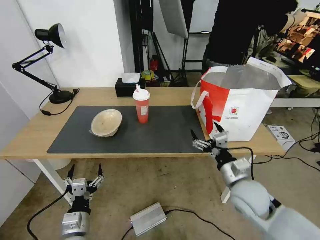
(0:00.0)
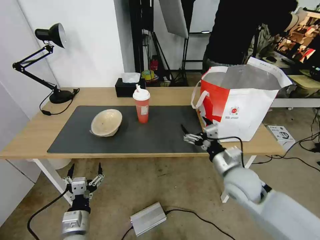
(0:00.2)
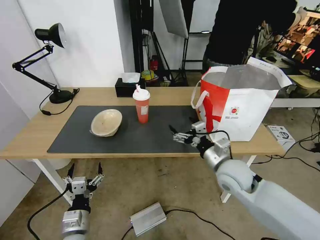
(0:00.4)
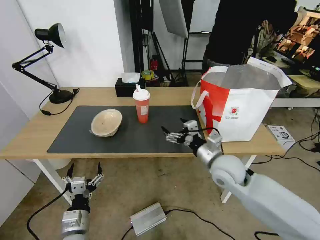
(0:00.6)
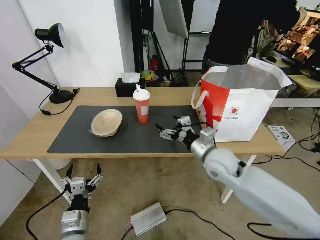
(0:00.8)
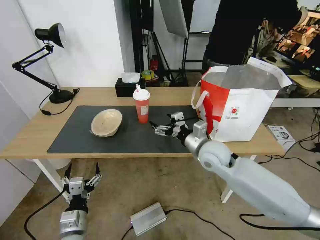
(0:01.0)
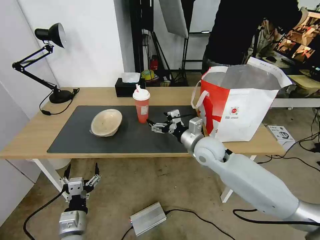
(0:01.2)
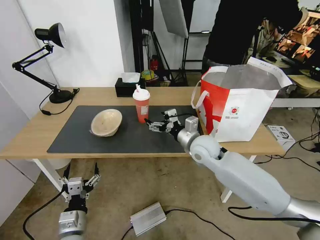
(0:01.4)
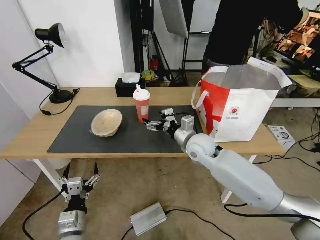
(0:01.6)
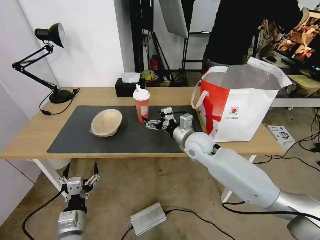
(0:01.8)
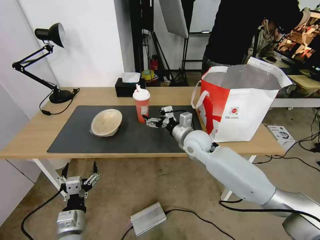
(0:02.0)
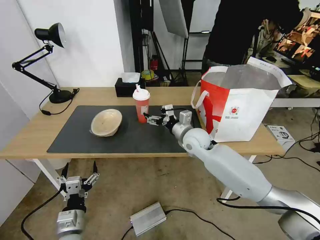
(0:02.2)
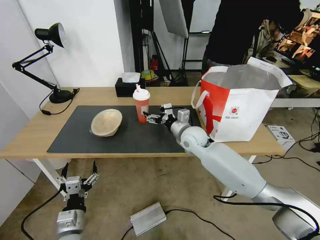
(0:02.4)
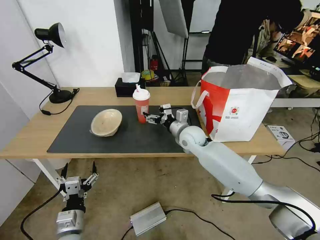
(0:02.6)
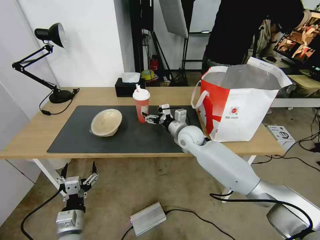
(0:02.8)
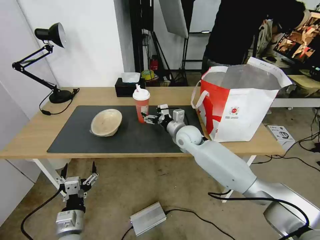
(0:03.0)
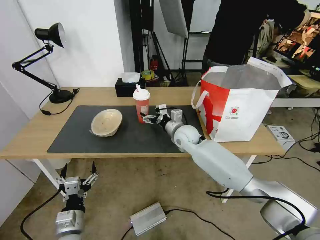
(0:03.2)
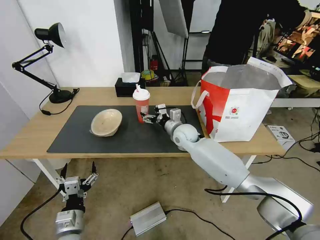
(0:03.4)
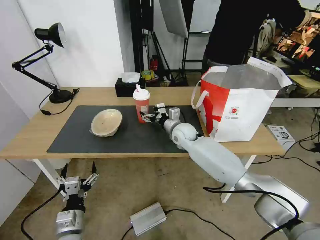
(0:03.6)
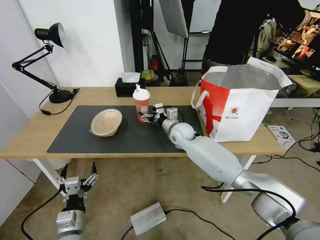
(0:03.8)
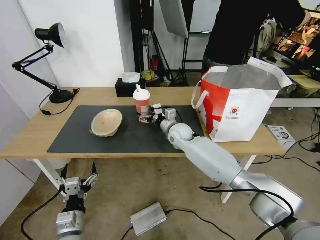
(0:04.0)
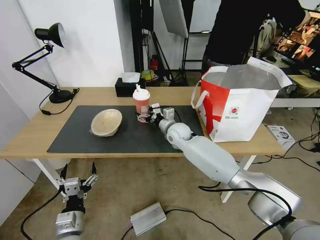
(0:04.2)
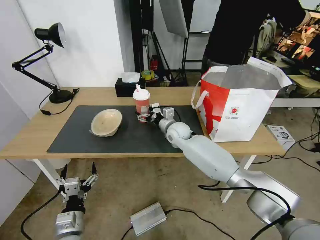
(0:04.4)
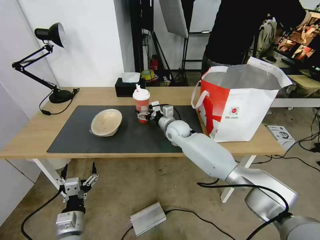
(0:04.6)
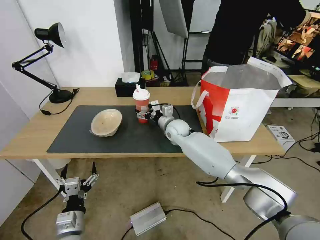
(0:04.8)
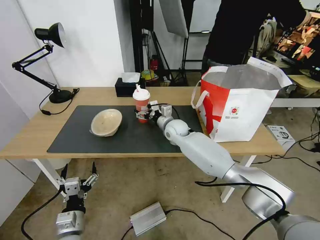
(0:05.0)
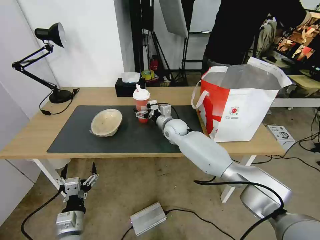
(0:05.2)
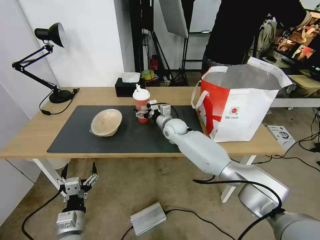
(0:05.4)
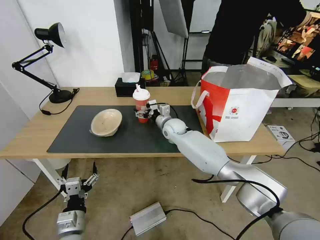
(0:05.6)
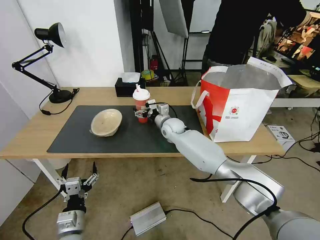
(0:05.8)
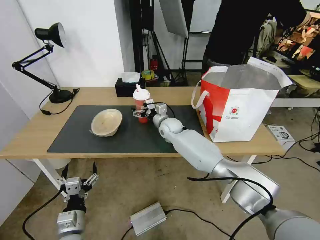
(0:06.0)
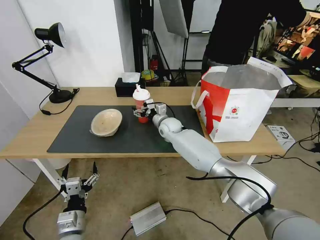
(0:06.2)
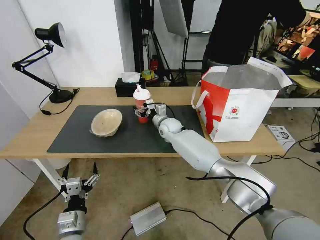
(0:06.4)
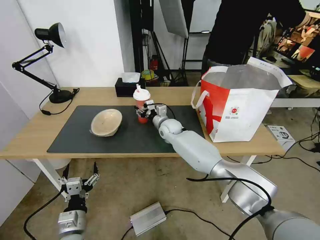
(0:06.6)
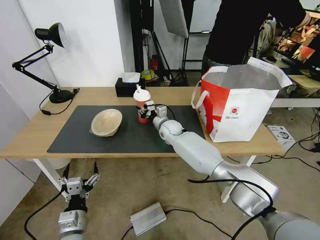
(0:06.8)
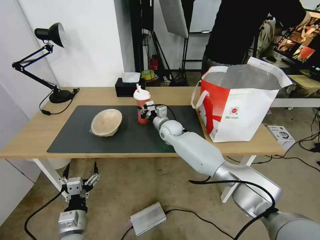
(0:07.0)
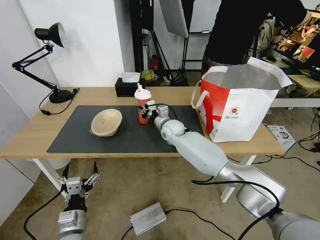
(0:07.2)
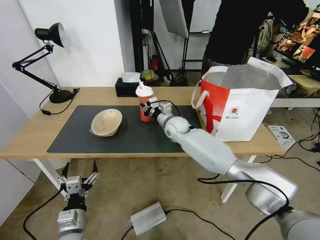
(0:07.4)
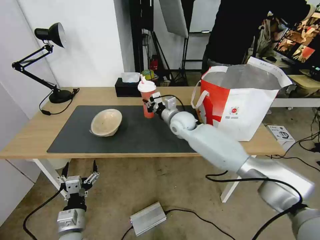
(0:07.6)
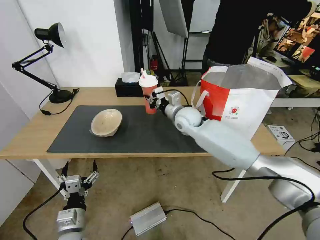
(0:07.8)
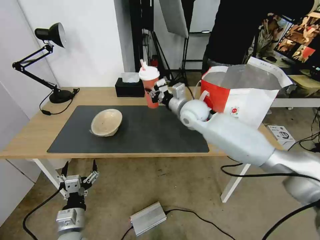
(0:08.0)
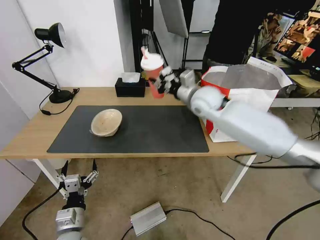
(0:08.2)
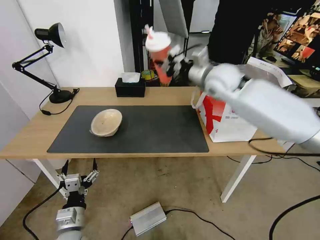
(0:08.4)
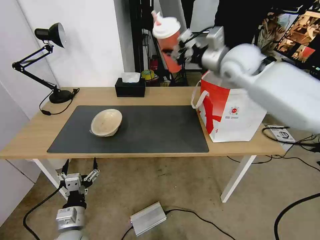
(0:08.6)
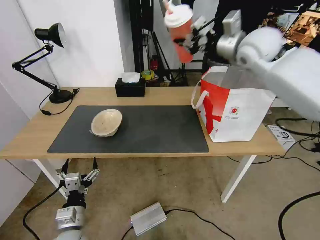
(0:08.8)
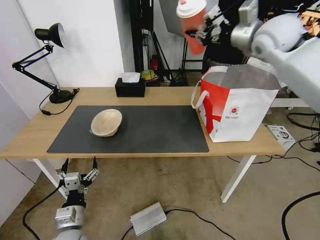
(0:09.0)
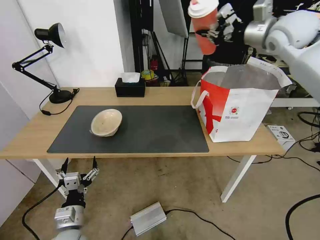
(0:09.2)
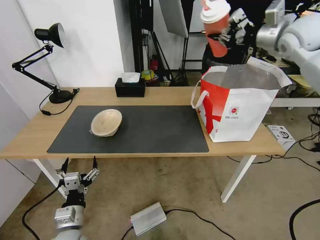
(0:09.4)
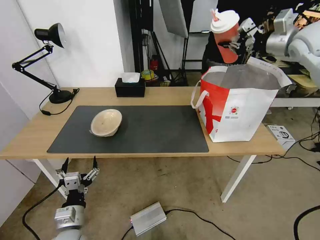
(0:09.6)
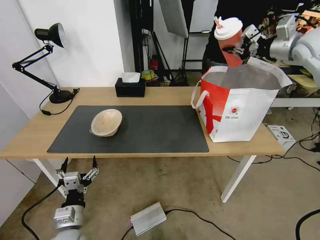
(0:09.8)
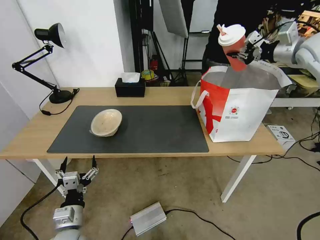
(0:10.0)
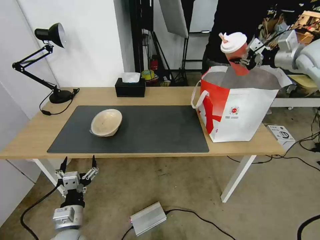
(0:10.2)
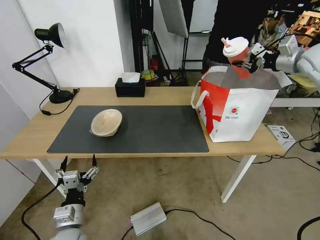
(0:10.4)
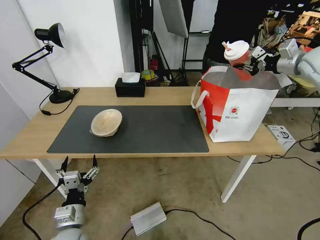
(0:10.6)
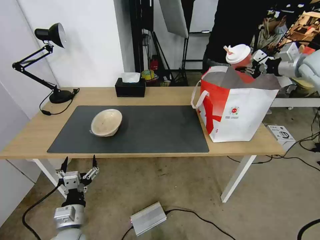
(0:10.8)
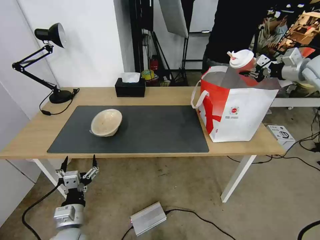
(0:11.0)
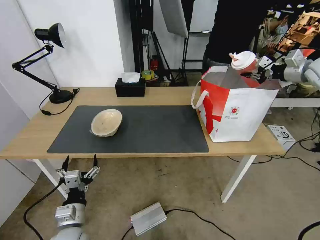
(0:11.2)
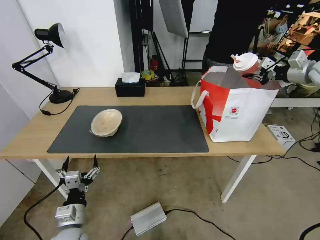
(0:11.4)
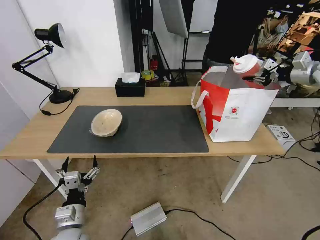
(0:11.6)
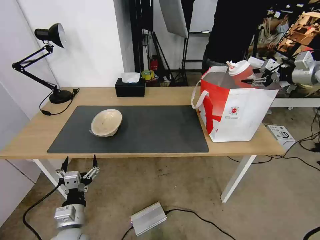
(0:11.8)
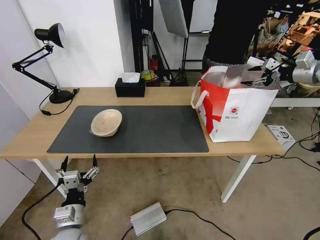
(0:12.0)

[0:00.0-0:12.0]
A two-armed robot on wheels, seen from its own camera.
Task of the whole recording: Pick up the trash from the table and place it into the takeout bag.
0:00.0 to 0:01.6: The right gripper moves forward and to the left, about 20 cm.
0:01.6 to 0:03.0: The right gripper heads forward, covering roughly 5 cm.
0:03.0 to 0:04.4: The right gripper shifts by approximately 5 cm.
0:04.4 to 0:06.0: The grippers stay close to where they were, moving slightly.
0:06.0 to 0:07.6: The right gripper heads upward, covering about 5 cm, and closes its fingers.
0:07.6 to 0:09.0: The right gripper travels upward and to the right by roughly 35 cm.
0:09.0 to 0:10.4: The right gripper heads to the right, covering about 20 cm.
0:10.4 to 0:12.0: The right gripper travels to the right by about 5 cm, and opens.

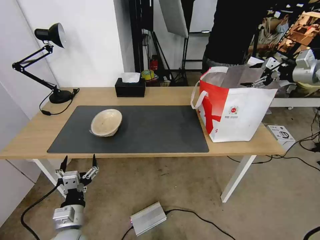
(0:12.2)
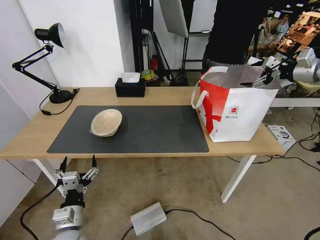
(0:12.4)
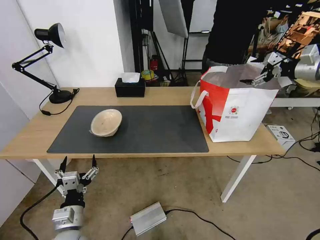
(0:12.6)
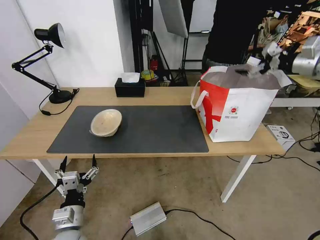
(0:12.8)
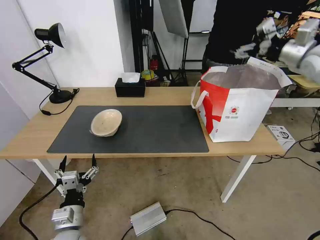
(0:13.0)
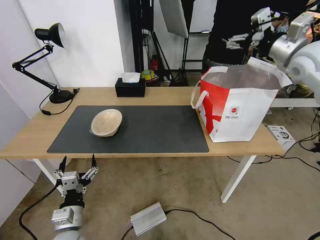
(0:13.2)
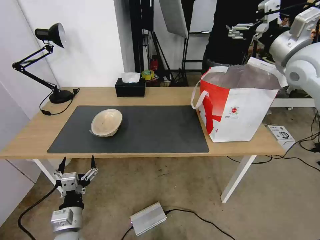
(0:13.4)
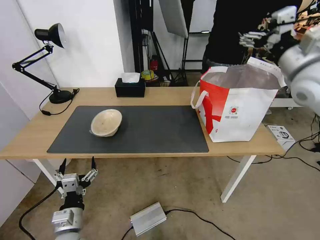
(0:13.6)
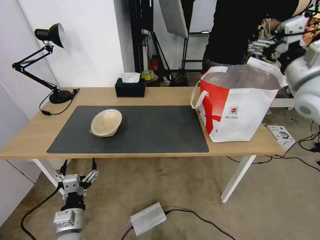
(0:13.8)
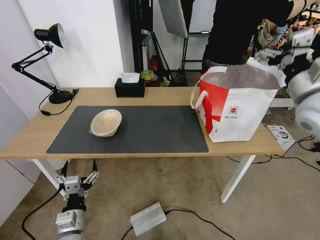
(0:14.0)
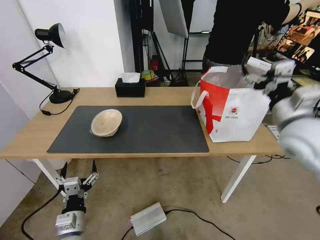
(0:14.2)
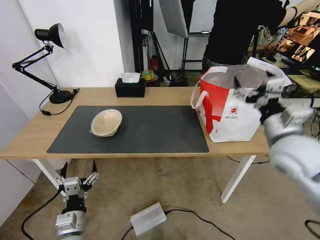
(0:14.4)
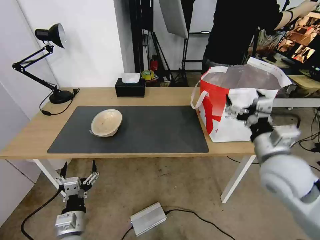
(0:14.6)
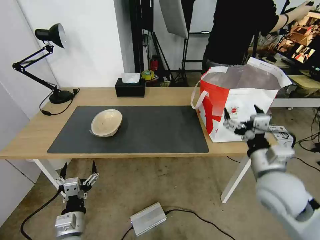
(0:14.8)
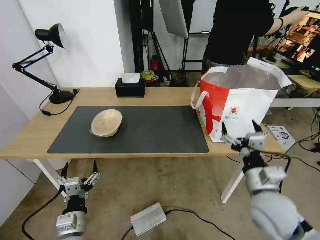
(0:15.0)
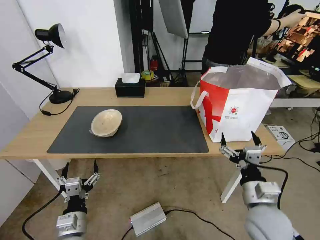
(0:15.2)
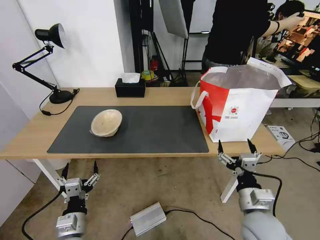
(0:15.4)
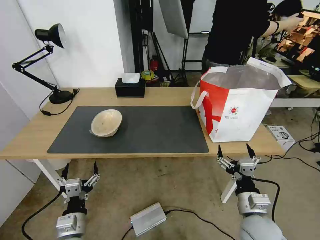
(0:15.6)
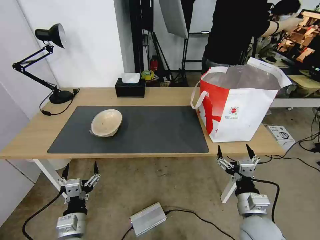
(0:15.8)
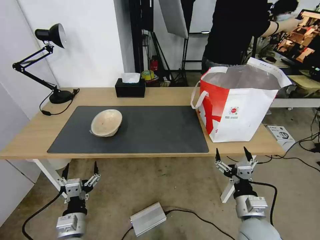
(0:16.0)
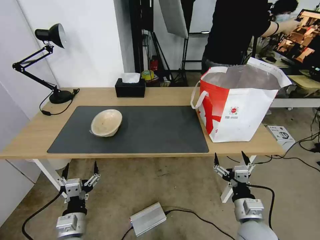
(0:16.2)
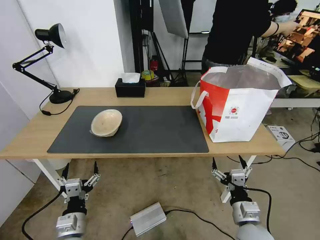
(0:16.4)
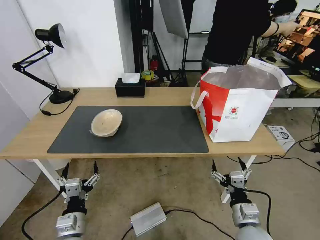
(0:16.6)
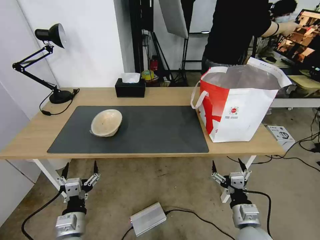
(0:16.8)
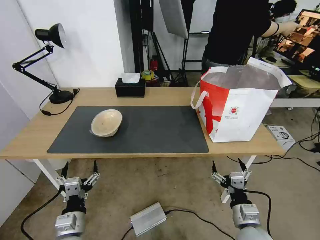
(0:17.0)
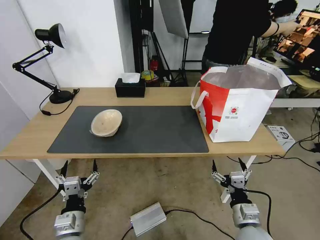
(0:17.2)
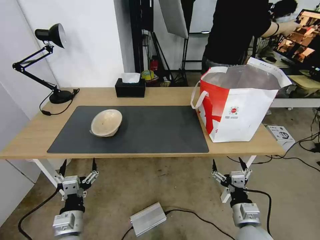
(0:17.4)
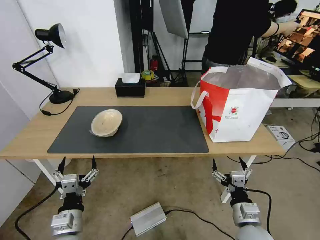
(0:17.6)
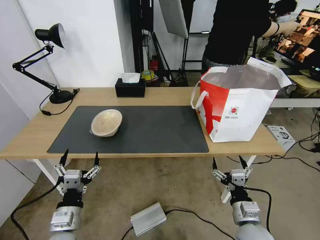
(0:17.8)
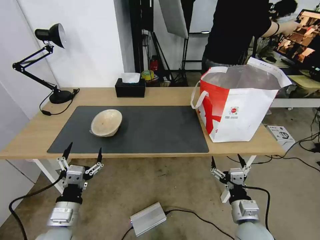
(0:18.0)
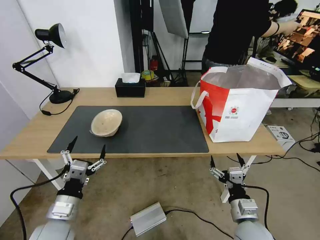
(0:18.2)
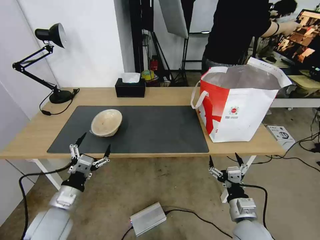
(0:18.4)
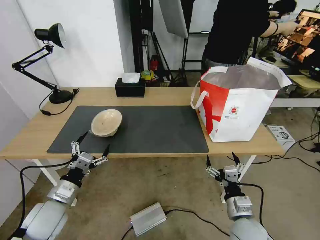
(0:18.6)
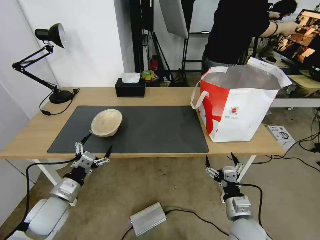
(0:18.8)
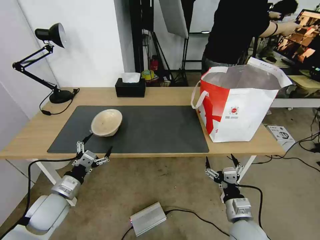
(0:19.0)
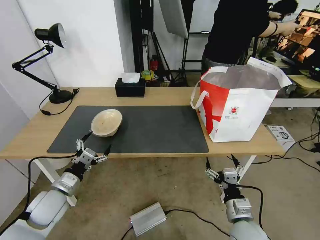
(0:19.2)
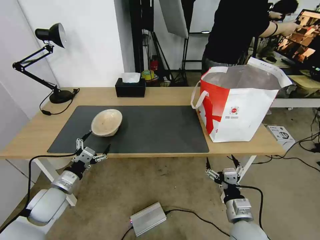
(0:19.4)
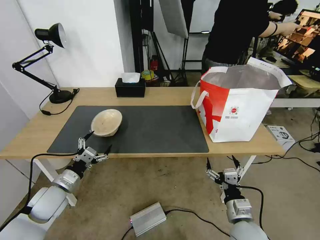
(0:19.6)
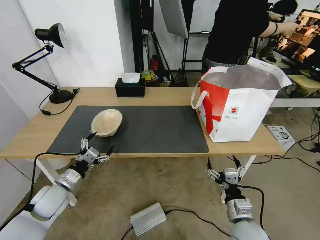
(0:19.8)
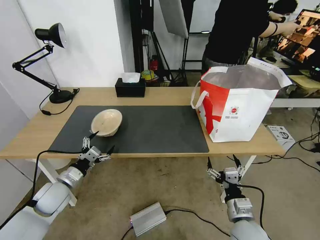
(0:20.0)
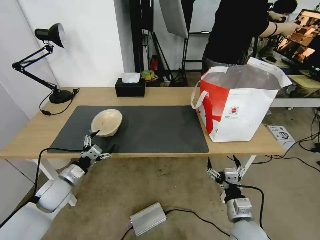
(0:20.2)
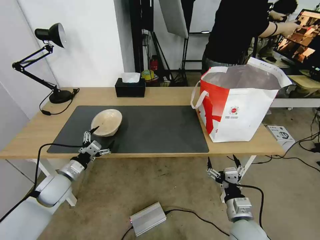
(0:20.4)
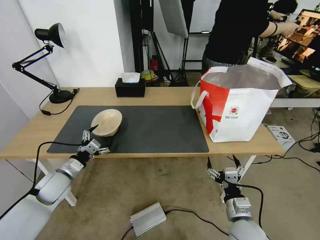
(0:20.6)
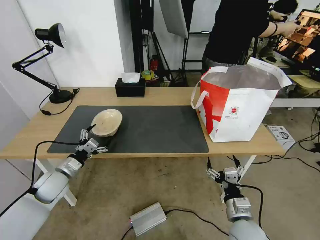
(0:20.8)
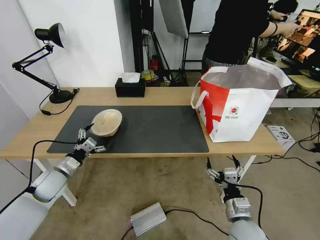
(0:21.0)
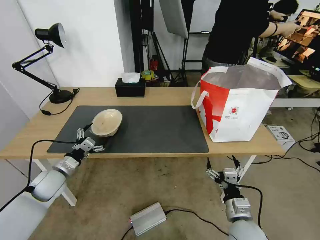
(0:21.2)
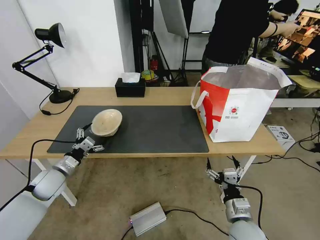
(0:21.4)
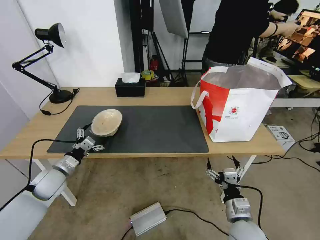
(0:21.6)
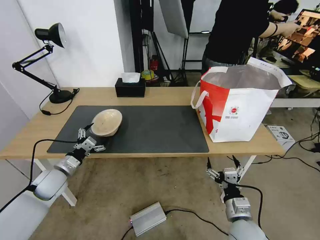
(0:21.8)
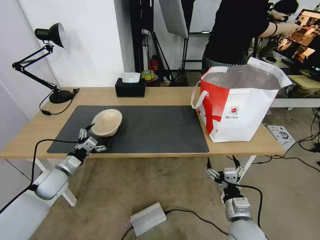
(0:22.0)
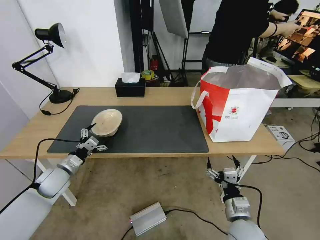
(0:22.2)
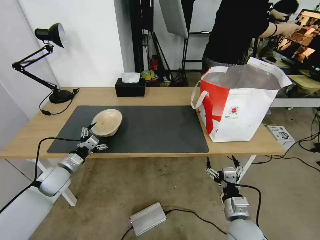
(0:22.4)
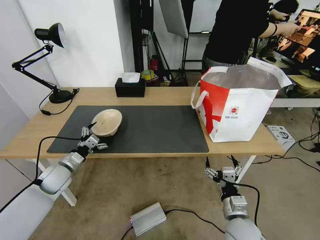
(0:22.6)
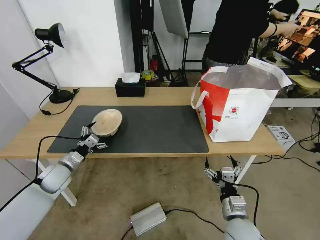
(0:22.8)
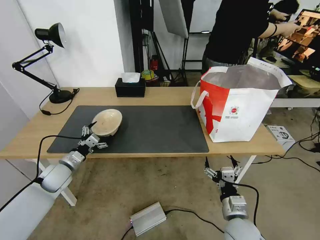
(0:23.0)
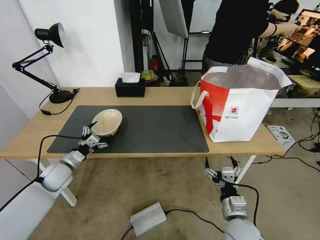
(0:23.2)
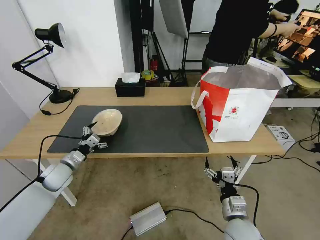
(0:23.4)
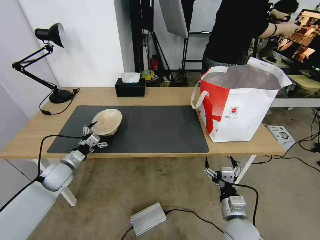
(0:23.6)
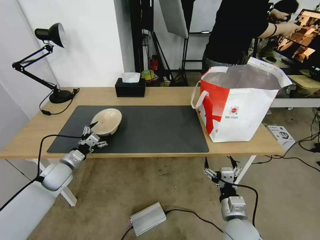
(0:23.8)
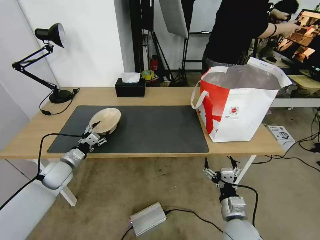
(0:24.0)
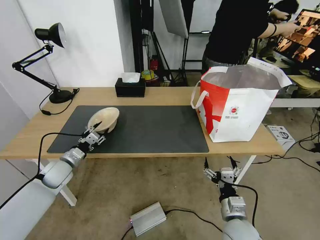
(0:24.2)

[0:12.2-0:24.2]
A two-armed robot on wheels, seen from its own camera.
Task of the whole recording: Pick up the trash from the table and place it into the takeout bag.
0:12.2 to 0:13.8: The right gripper moves to the left and backward, roughly 25 cm.
0:13.8 to 0:15.2: The right gripper heads downward and backward, covering some 30 cm.
0:15.2 to 0:16.6: The right gripper moves downward, some 10 cm.
0:16.6 to 0:18.2: The left gripper goes roughly 5 cm upward.
0:18.2 to 0:19.8: The left gripper shifts some 15 cm forward and to the left.
0:19.8 to 0:21.2: The left gripper moves forward, approximately 5 cm.
0:21.2 to 0:22.6: The grippers move only a little.
0:22.6 to 0:24.2: The left gripper closes up.
